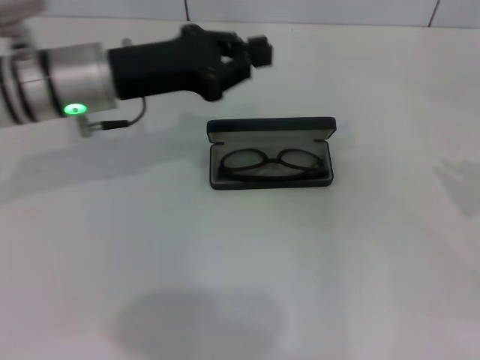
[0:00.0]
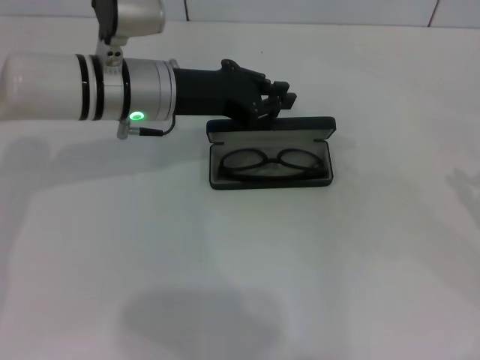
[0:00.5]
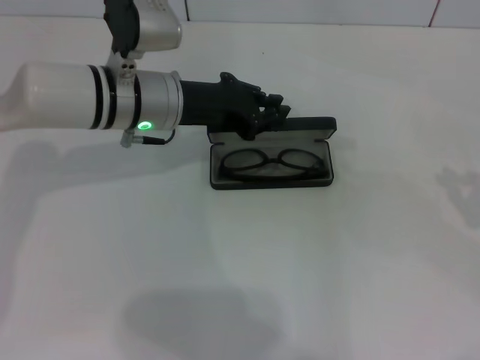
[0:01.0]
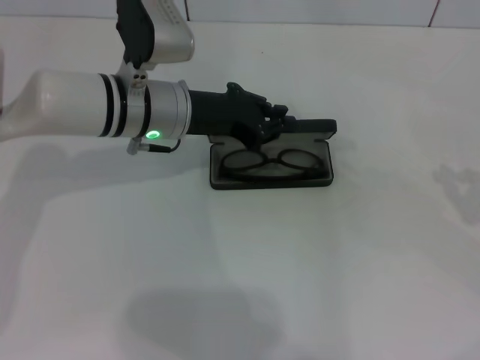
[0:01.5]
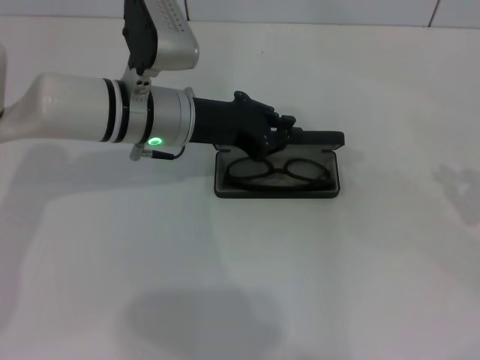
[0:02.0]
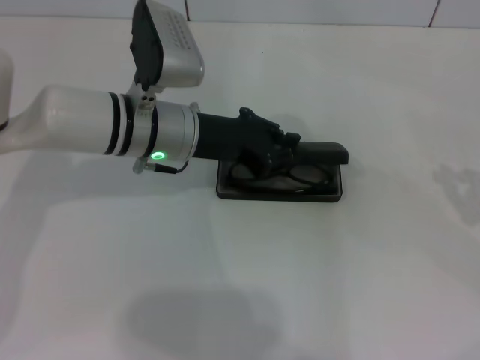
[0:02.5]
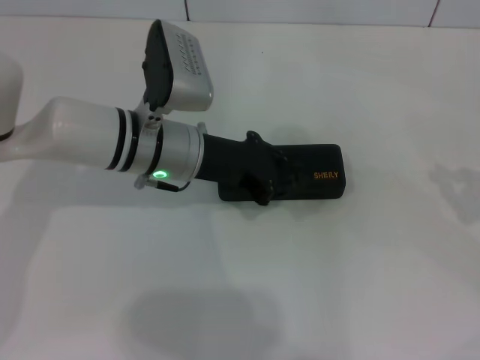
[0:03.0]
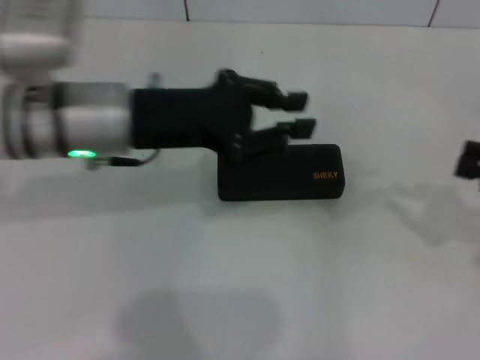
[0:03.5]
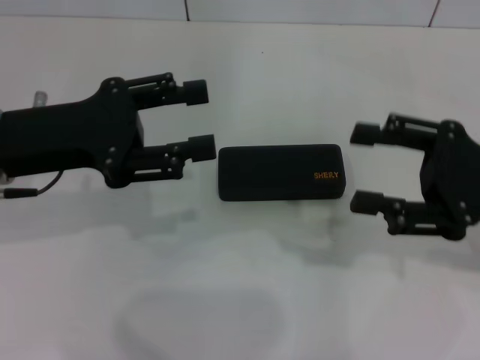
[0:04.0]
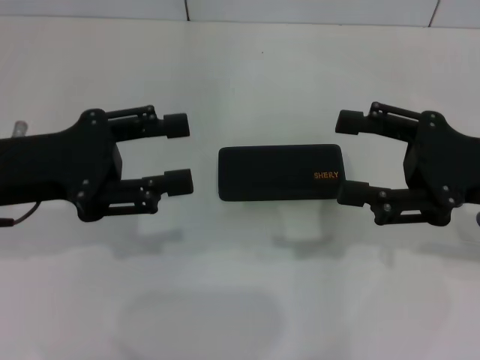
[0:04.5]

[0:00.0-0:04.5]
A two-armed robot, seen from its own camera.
Step, 0:00.0 to 0:03.0: Close the glasses case with your left hand.
0:00.0 to 0:02.0: The right gripper shifts roughly 10 cm downward; the left gripper heads to the right, covering about 5 cm.
0:02.0 to 0:04.5: The left gripper travels to the left and backward by some 20 cm, and opens its fingers; the right gripper travels to the left by some 15 cm, and opens its fingers.

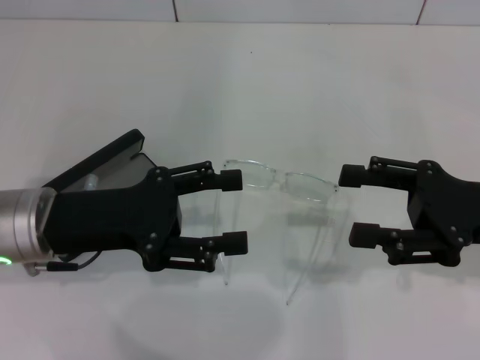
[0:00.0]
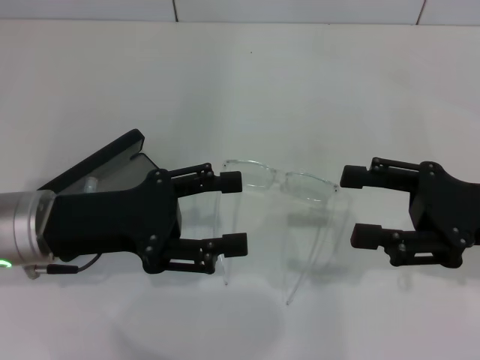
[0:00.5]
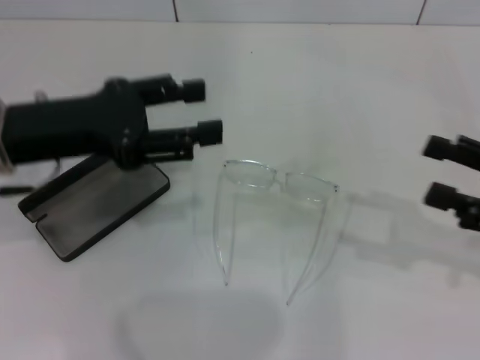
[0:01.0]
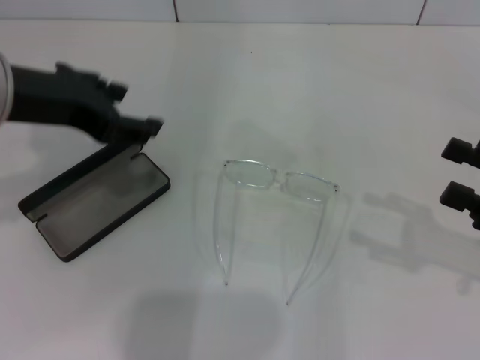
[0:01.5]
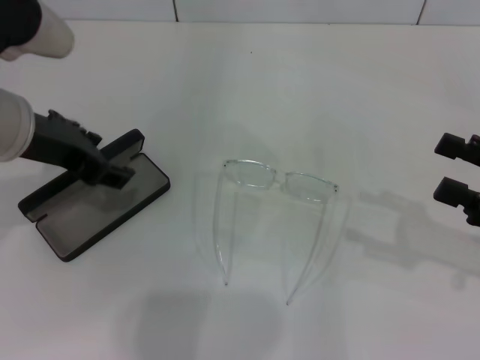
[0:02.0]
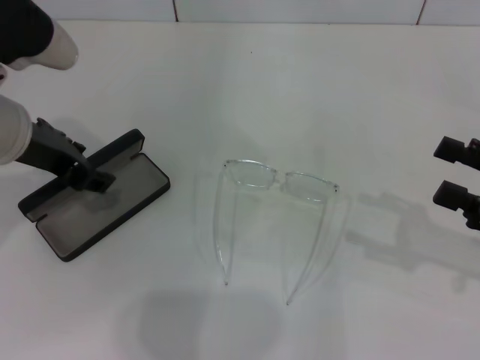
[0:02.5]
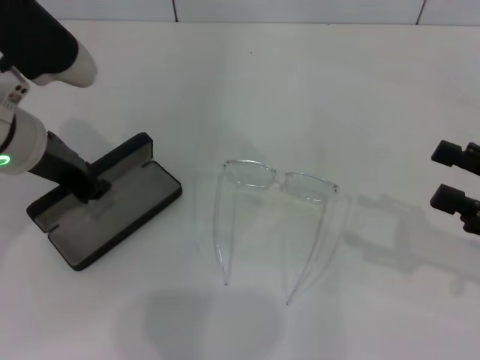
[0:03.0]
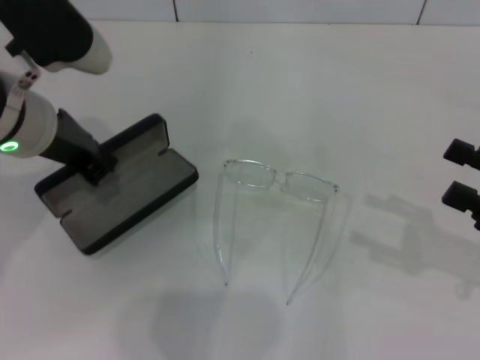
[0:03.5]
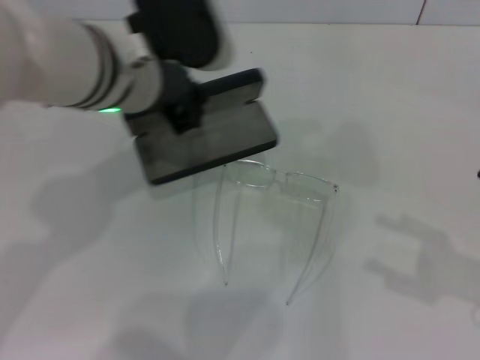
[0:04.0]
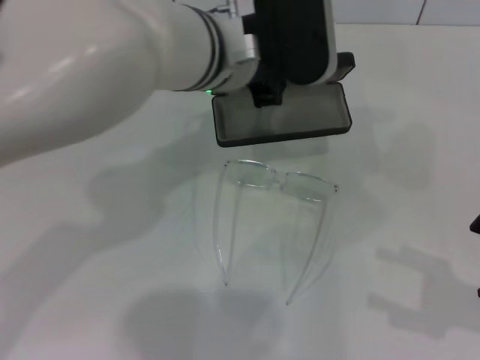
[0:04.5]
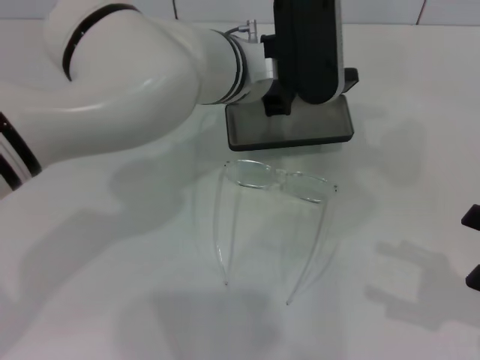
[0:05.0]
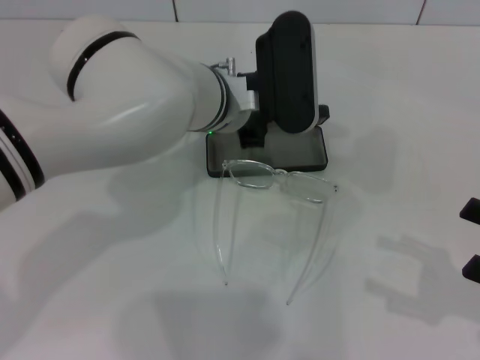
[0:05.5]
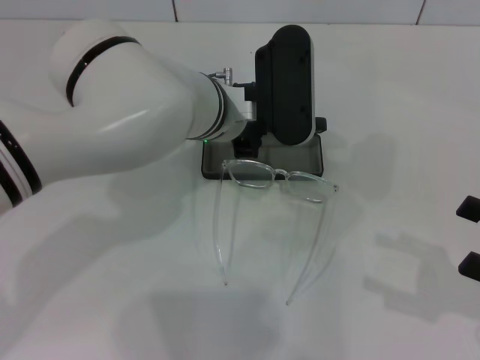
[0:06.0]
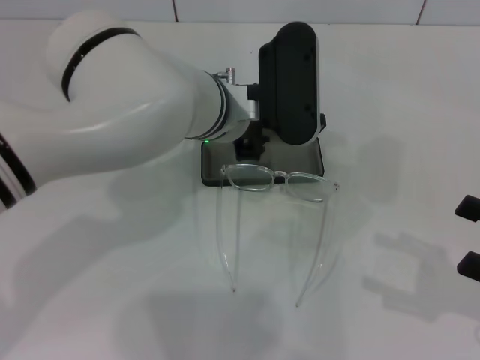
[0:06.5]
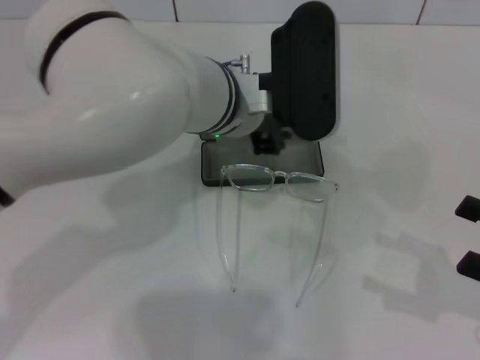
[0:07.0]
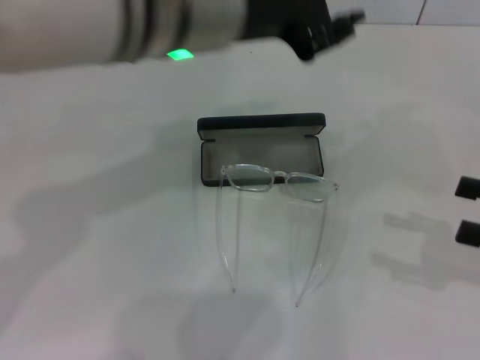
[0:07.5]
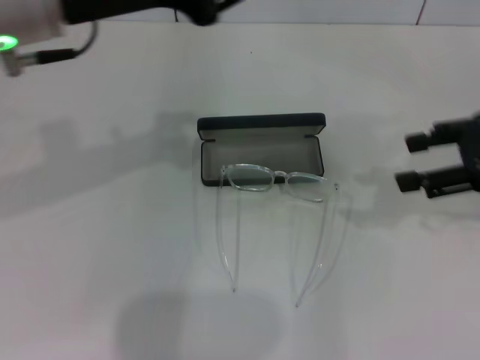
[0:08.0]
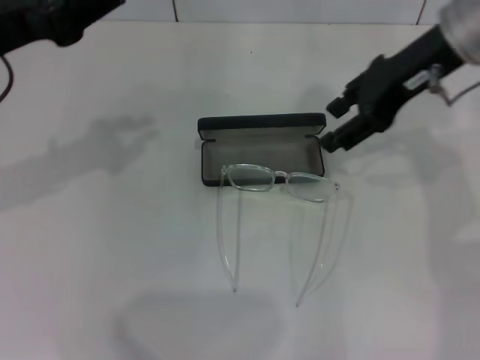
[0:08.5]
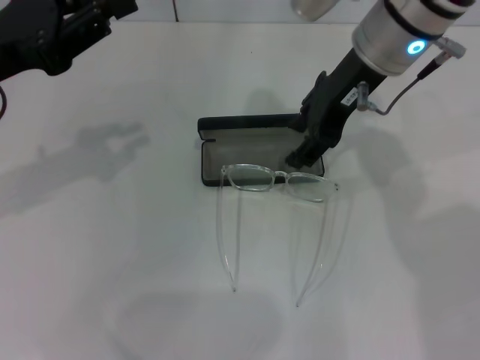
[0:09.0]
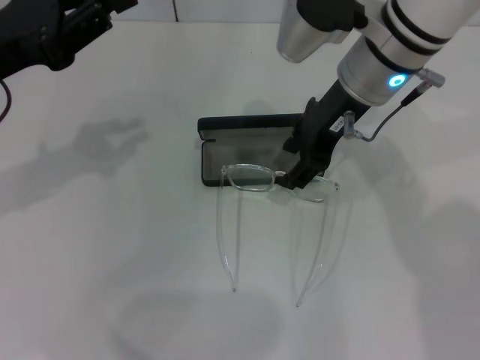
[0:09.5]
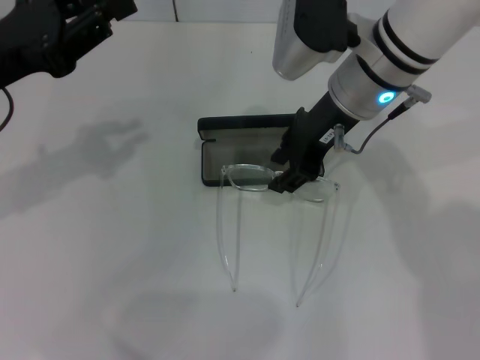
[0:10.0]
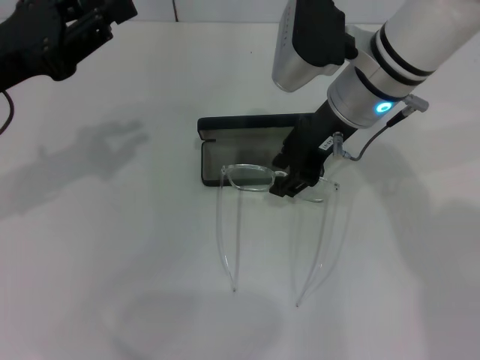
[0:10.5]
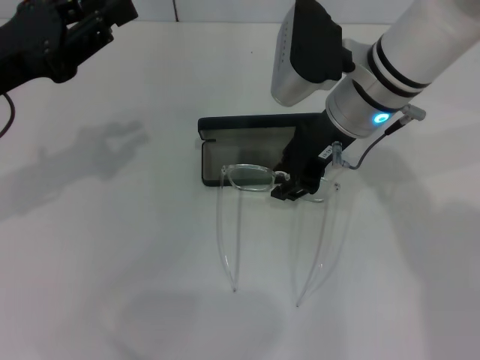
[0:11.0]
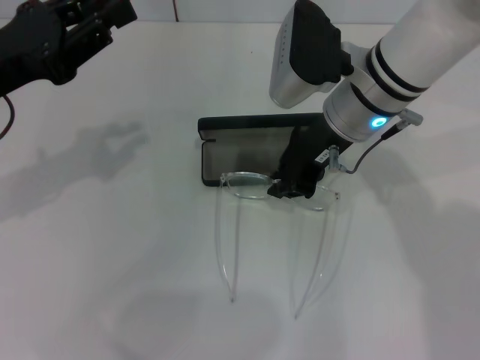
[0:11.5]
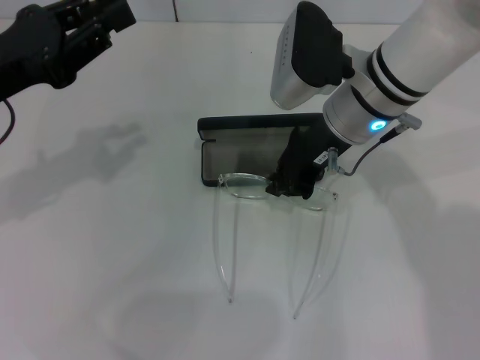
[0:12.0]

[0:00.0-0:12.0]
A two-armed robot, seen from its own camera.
Step, 0:00.0 to 0:02.5: Grab the glasses case with your left hand.
Step, 0:03.5 to 0:06.5: Place the glasses case in the center of the table with your left hand.
Step, 0:07.0 to 0:11.5: Grab the eyeglass frame with your right hand.
0:00.0 to 0:02.0: The left gripper goes approximately 10 cm upward. Meanwhile the right gripper heads to the right, covering some 5 cm.
0:02.0 to 0:04.0: The left gripper goes about 10 cm to the right, and closes its fingers.
0:04.0 to 0:06.0: The left gripper heads downward and to the right, covering about 10 cm.
0:06.0 to 0:08.0: The right gripper shifts roughly 15 cm forward and upward, while the left gripper goes about 20 cm upward, to the left and backward.
0:08.0 to 0:10.0: The left gripper travels to the left and downward by roughly 15 cm. Meanwhile the right gripper is displaced to the left and forward by approximately 20 cm.
0:10.0 to 0:12.0: The right gripper closes.

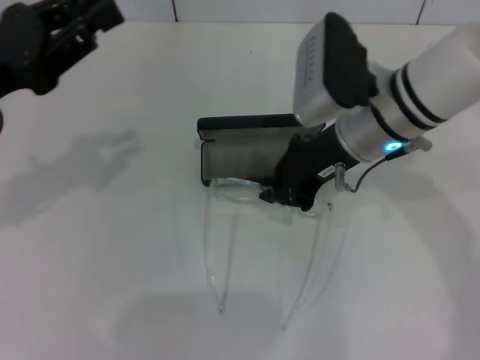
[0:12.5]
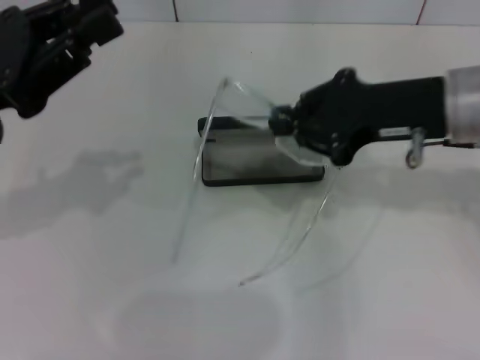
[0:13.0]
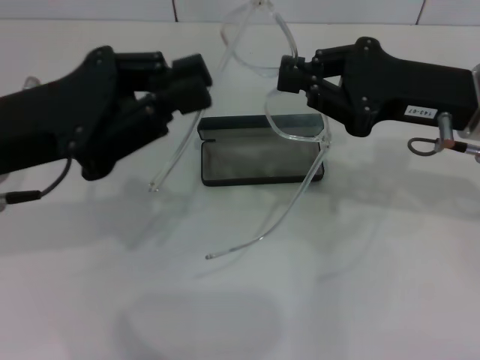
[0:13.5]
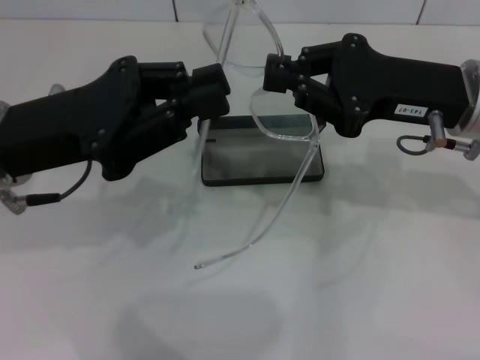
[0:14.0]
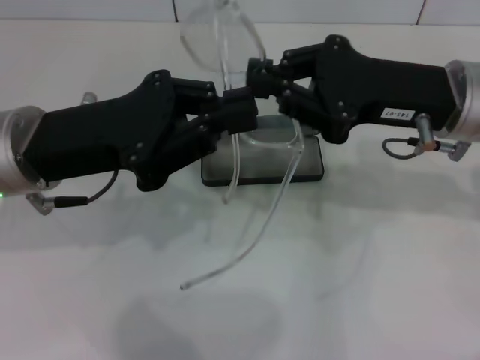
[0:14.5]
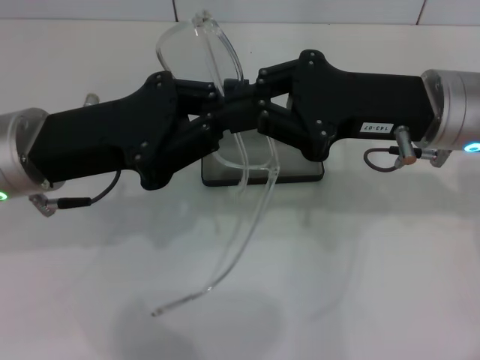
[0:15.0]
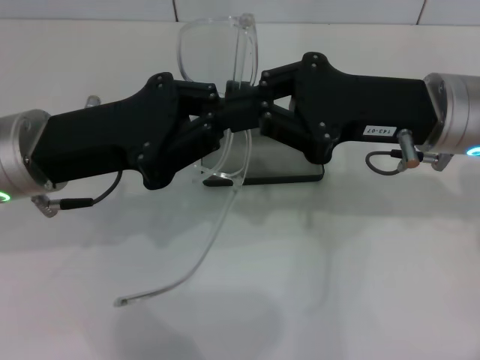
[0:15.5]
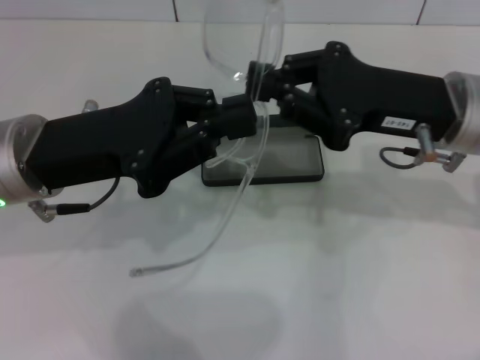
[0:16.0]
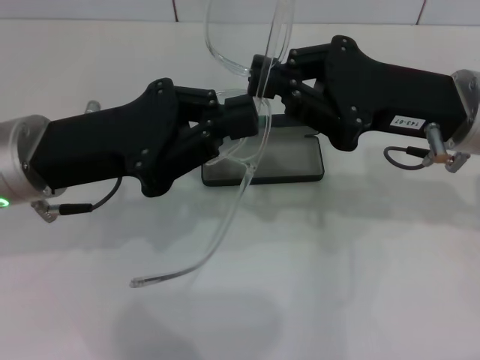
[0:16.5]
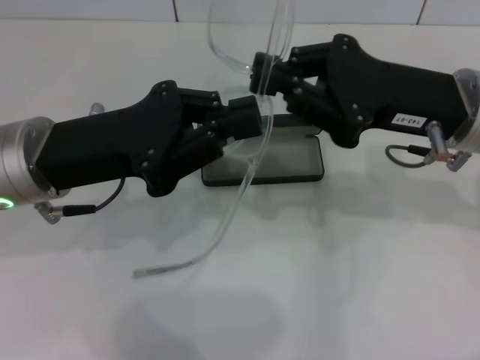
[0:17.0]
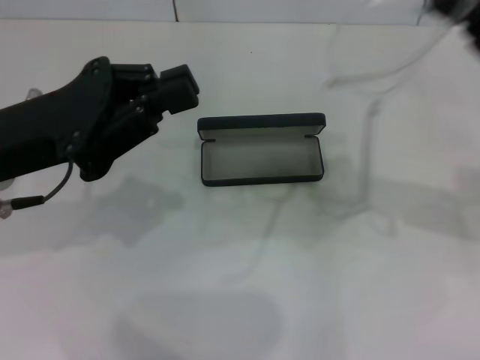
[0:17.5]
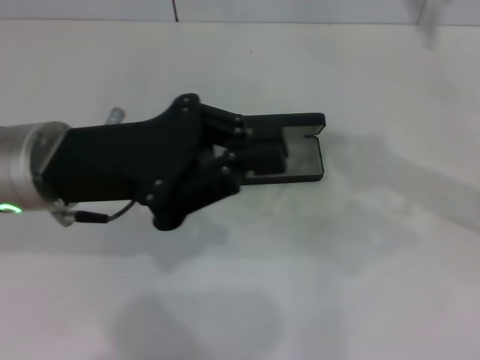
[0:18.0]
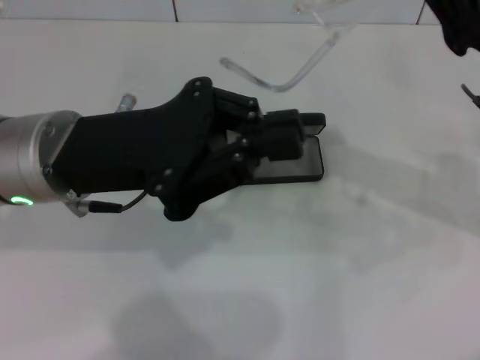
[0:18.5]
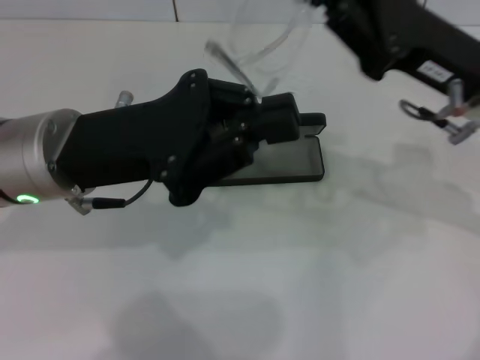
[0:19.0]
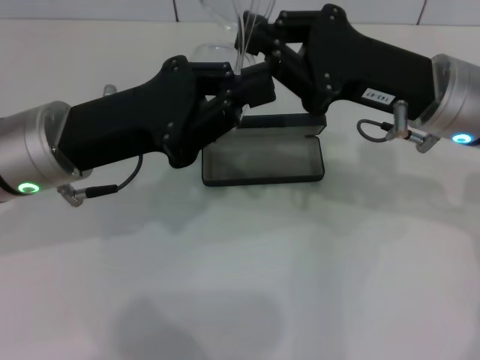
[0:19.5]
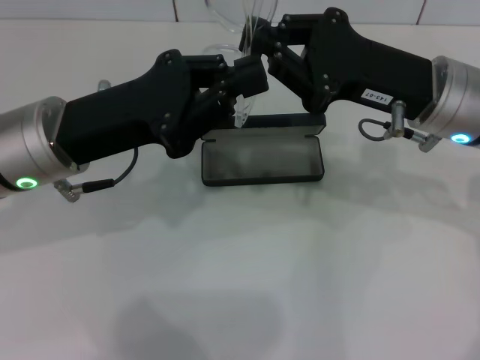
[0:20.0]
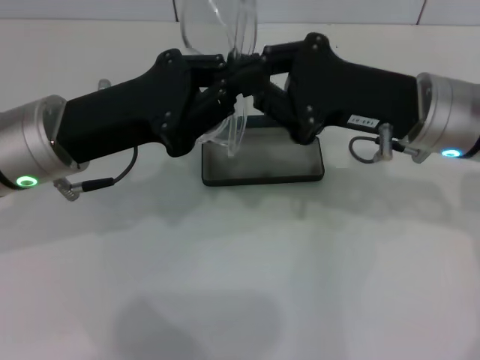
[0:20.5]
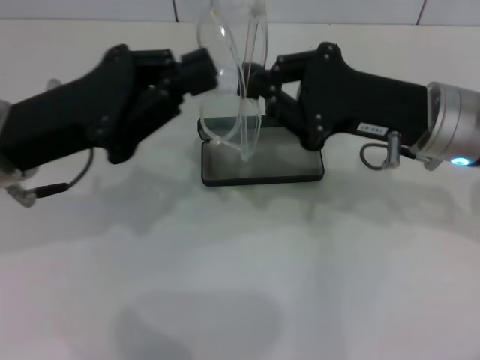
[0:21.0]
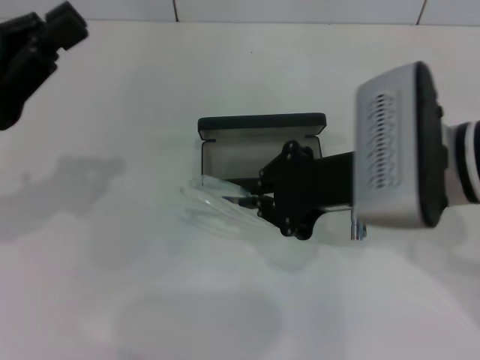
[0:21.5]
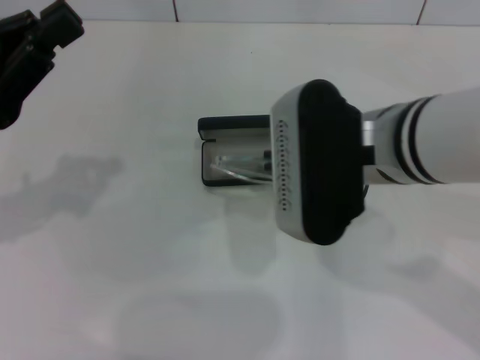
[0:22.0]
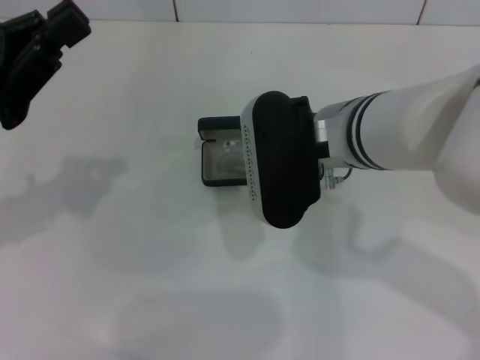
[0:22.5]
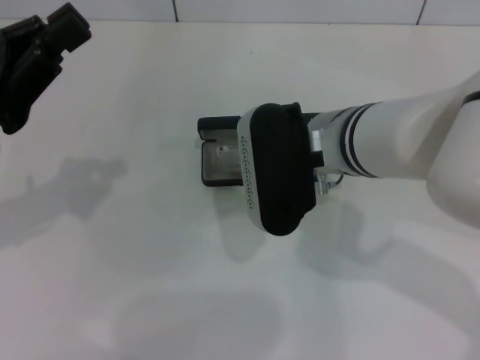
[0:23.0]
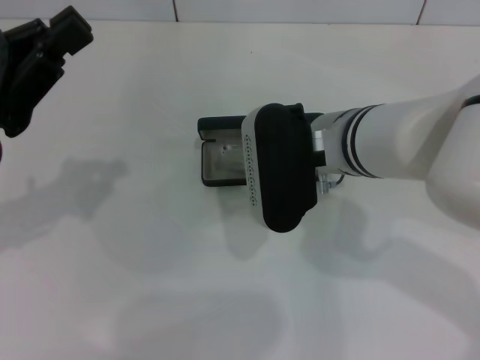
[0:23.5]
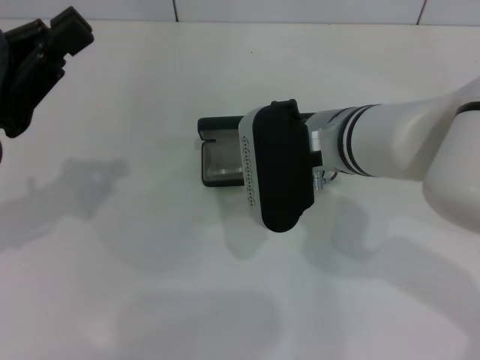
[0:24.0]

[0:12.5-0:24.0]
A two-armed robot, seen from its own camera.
Step, 0:12.5 to 0:20.5: Fold the frame with your left hand.
0:12.5 to 0:14.5: The two grippers go approximately 10 cm to the right.
0:14.5 to 0:16.5: The grippers make only small movements.
0:16.5 to 0:18.5: The right gripper travels to the right by roughly 5 cm.
0:18.5 to 0:20.0: The right gripper heads to the left, covering approximately 5 cm.
0:20.0 to 0:22.0: The left gripper goes roughly 10 cm to the left. The right gripper is displaced to the left and backward by roughly 10 cm.
0:22.0 to 0:24.0: The right gripper heads downward, covering about 5 cm.
